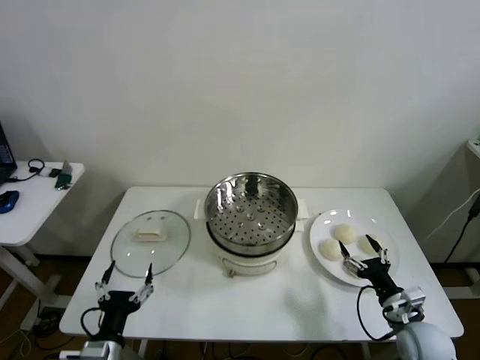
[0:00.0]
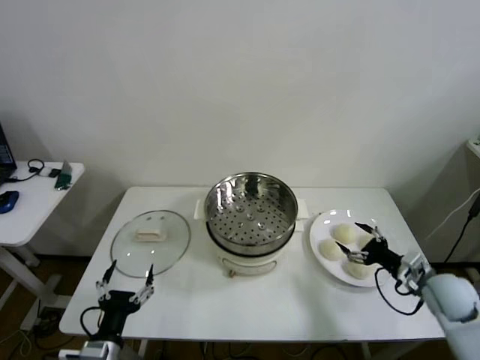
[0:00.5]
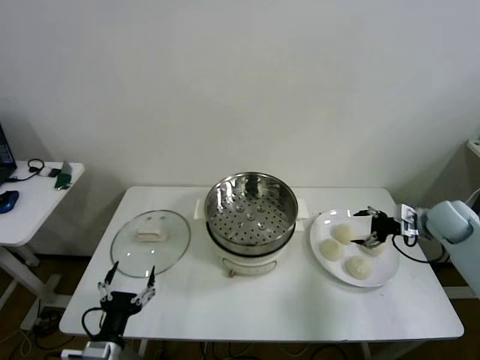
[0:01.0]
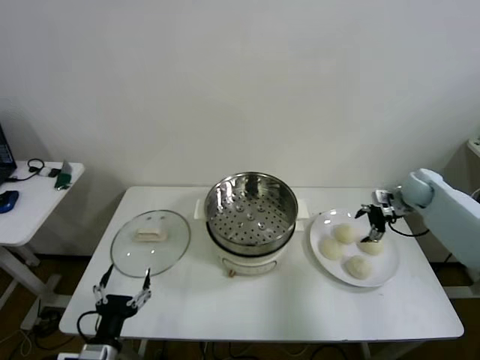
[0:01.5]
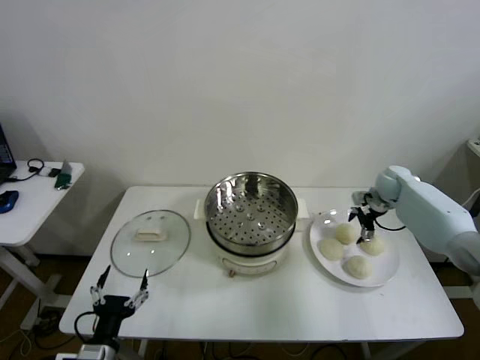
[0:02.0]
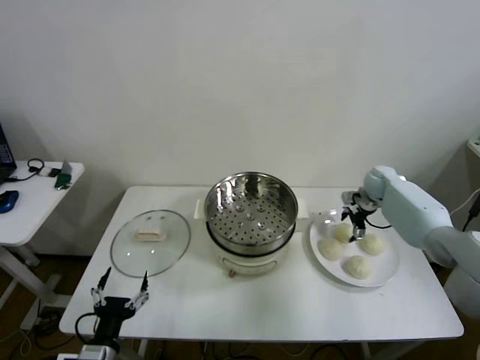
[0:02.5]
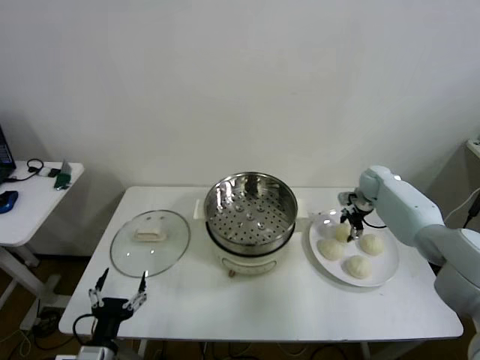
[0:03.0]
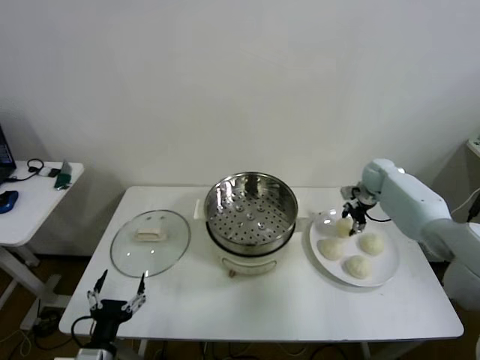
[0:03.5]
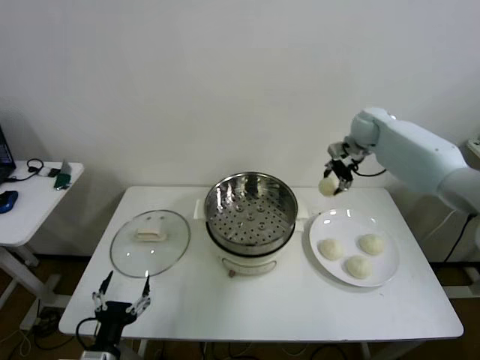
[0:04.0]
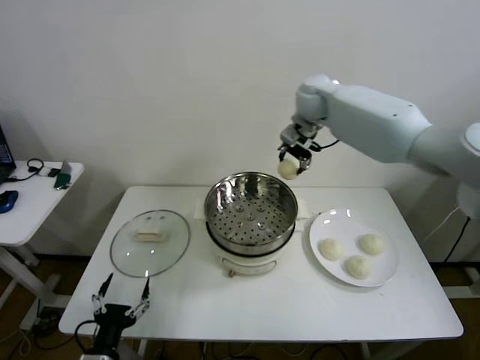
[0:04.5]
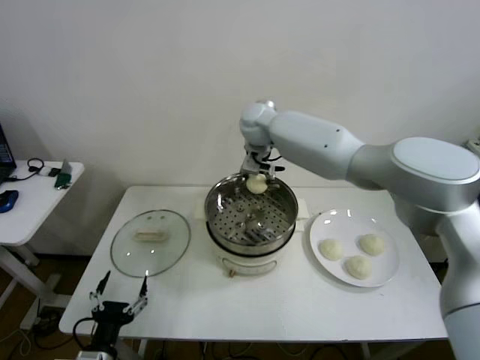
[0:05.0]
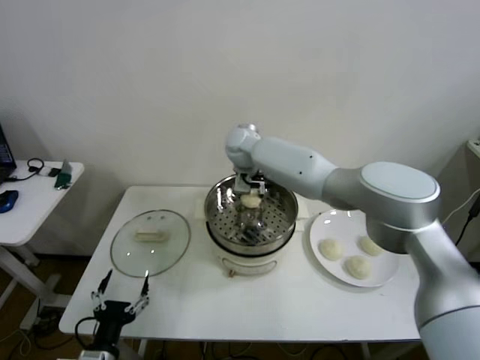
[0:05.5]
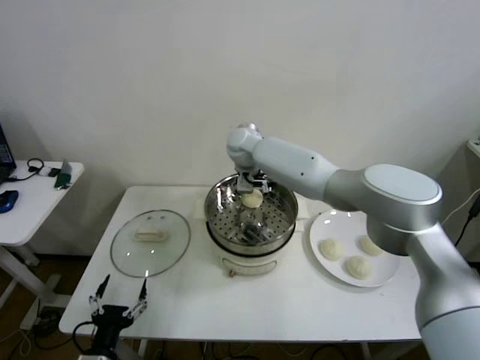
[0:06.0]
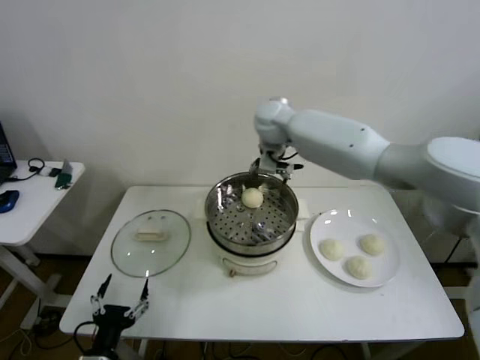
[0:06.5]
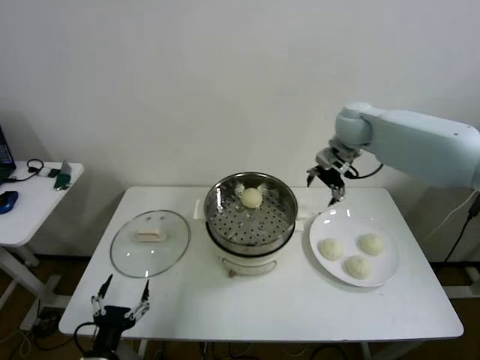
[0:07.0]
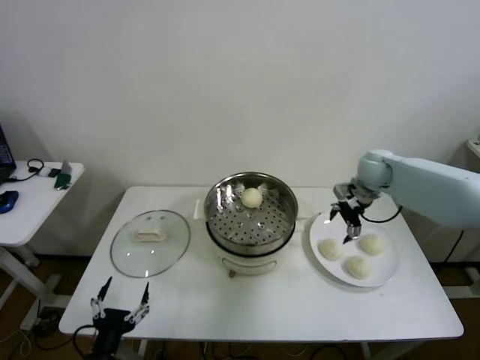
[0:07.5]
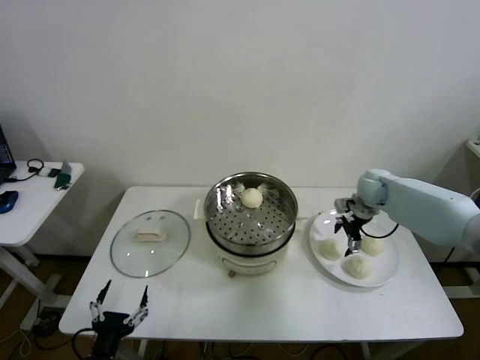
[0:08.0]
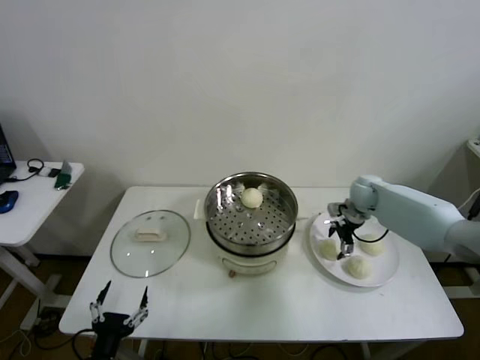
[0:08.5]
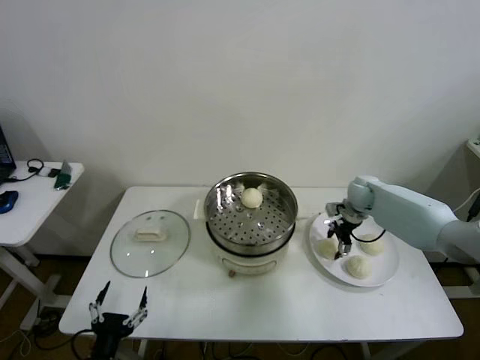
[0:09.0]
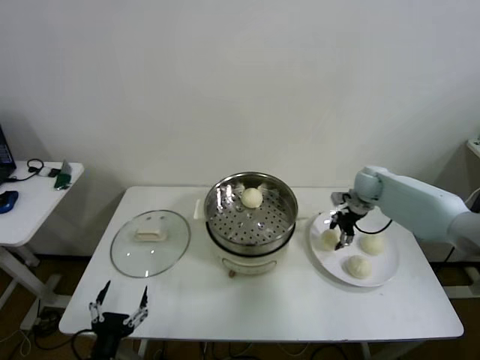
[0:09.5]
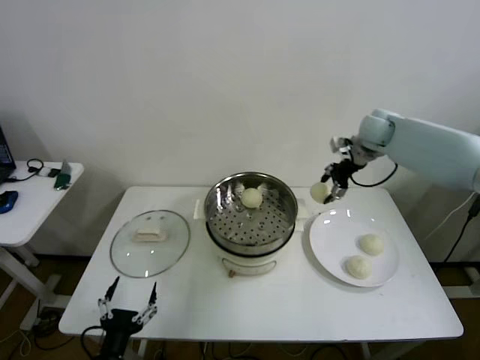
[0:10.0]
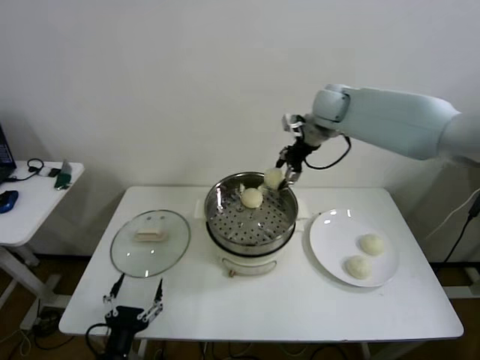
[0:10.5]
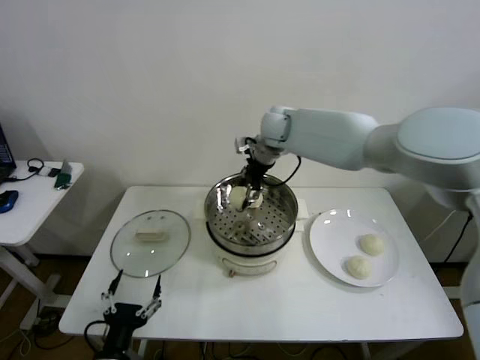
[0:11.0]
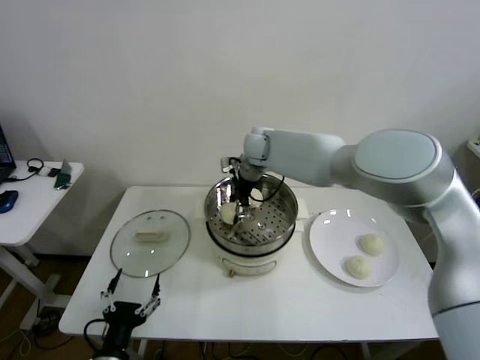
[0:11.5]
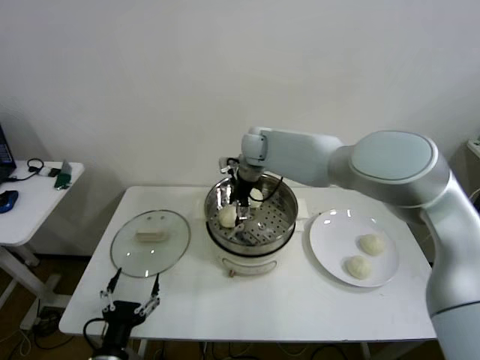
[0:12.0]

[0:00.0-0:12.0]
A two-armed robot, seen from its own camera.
Step, 0:00.0 to 0:03.0: Grasp the baozi in the plate with right gripper.
Step, 0:03.5 to 0:05.5: Place the baozi on the steamer with right gripper.
Step, 0:06.0 to 0:09.0: Grasp the baozi in the plate with right gripper.
Step, 0:09.5 to 0:11.5: Place the baozi on the steamer with right gripper.
0:02.0 to 0:04.0: The right gripper shifts approximately 25 cm upward and to the left, and closes up.
0:04.0 to 0:06.0: The right gripper shifts some 30 cm to the left, and opens its fingers.
0:06.0 to 0:08.0: The right gripper goes some 35 cm to the right.
0:08.0 to 0:10.0: The right gripper travels upward by roughly 20 cm, and closes its fingers.
0:10.0 to 0:12.0: The right gripper moves to the left, roughly 25 cm, and opens.

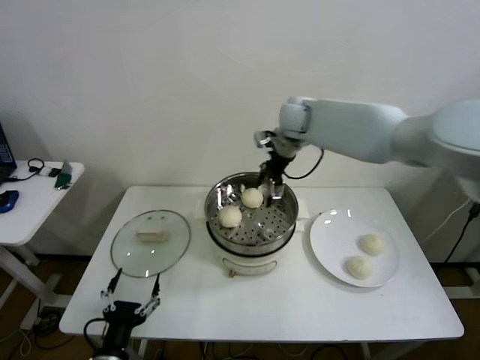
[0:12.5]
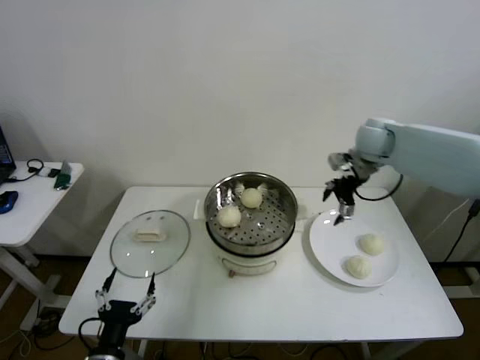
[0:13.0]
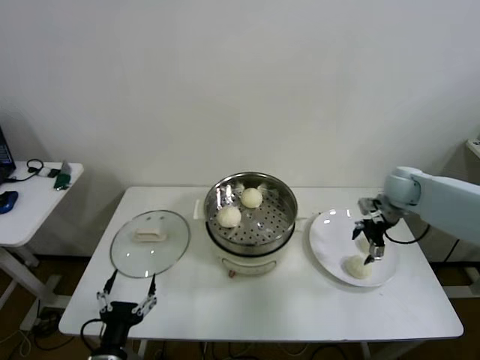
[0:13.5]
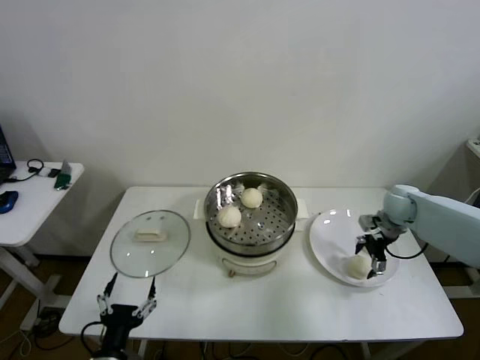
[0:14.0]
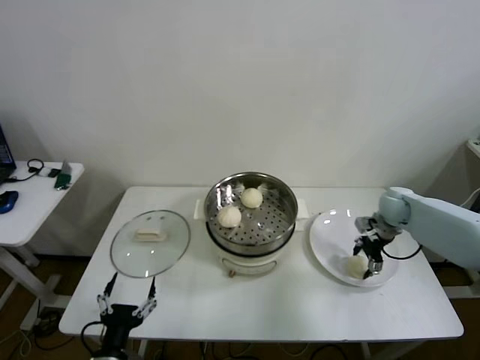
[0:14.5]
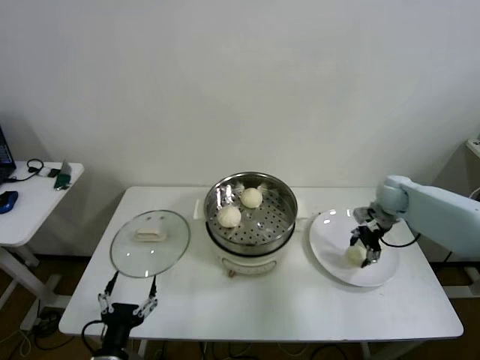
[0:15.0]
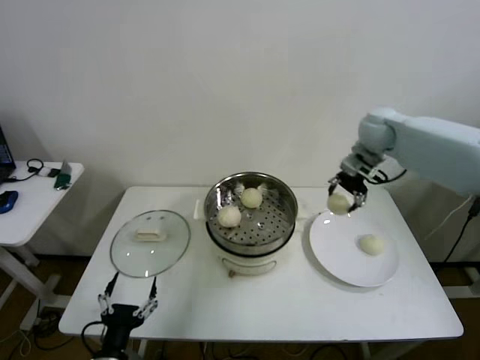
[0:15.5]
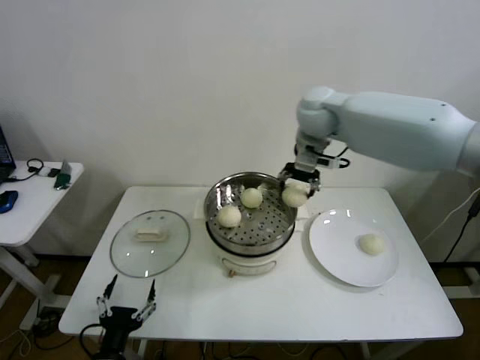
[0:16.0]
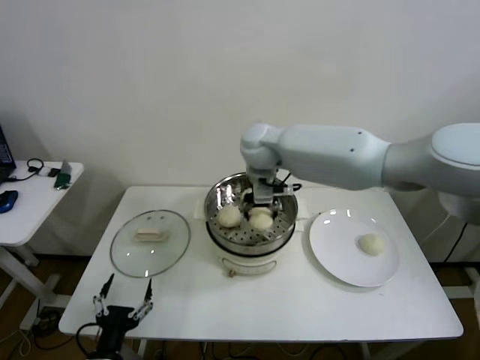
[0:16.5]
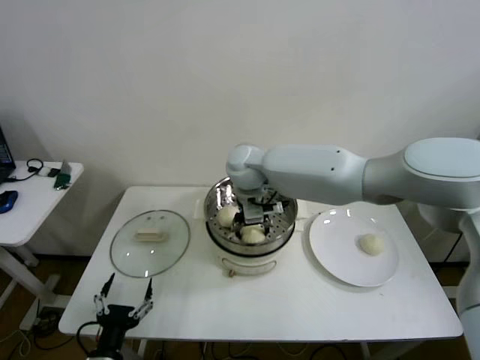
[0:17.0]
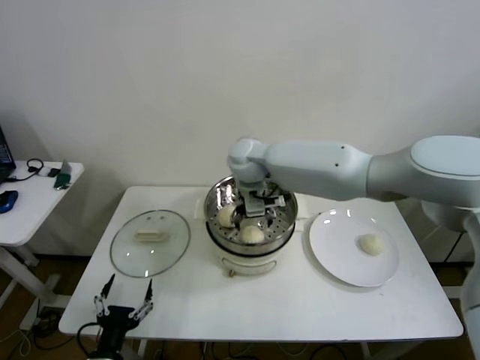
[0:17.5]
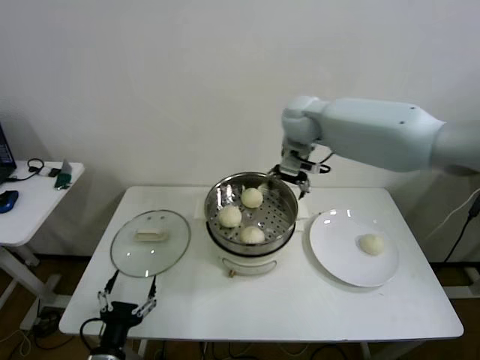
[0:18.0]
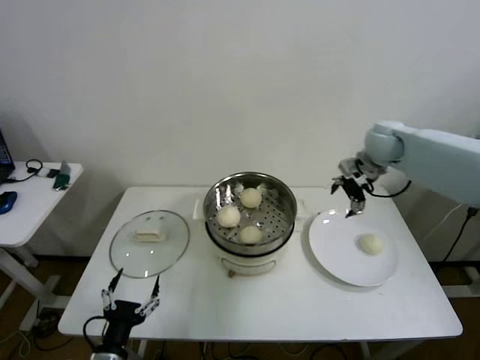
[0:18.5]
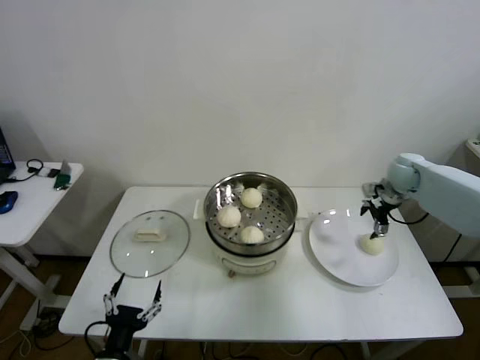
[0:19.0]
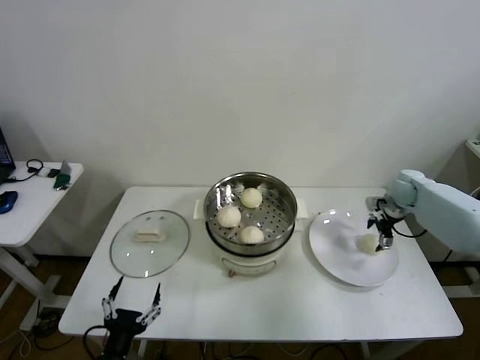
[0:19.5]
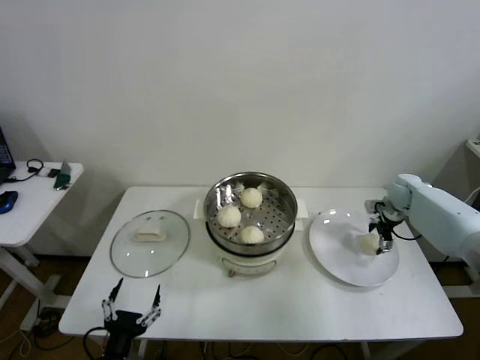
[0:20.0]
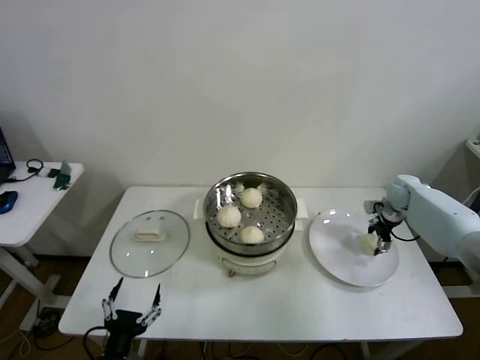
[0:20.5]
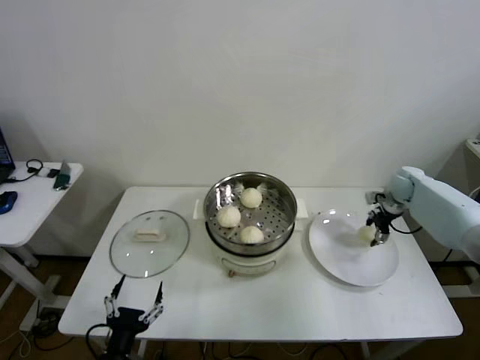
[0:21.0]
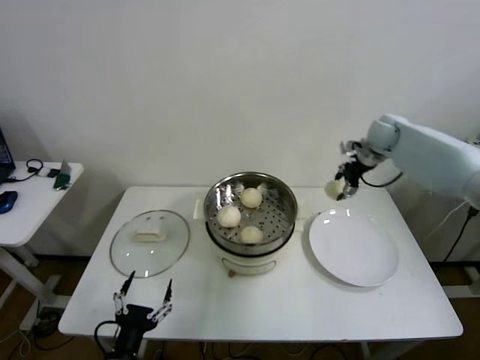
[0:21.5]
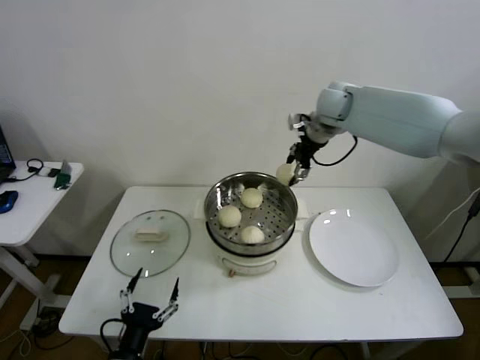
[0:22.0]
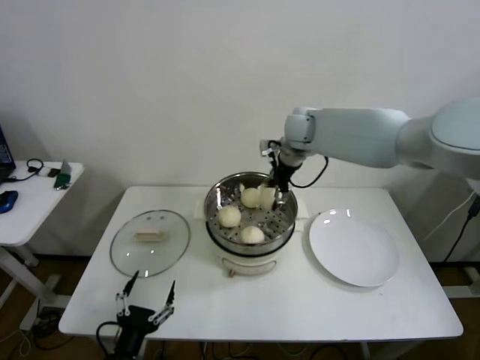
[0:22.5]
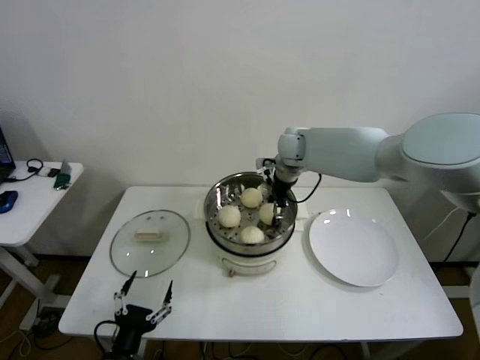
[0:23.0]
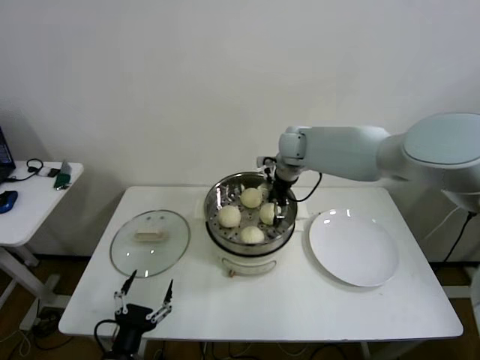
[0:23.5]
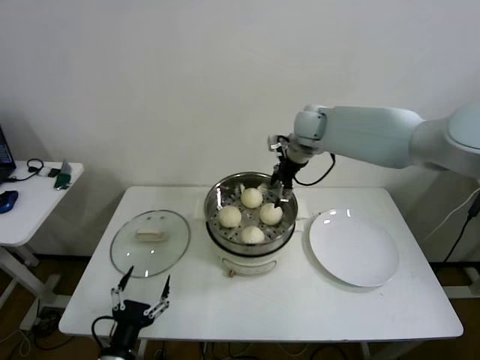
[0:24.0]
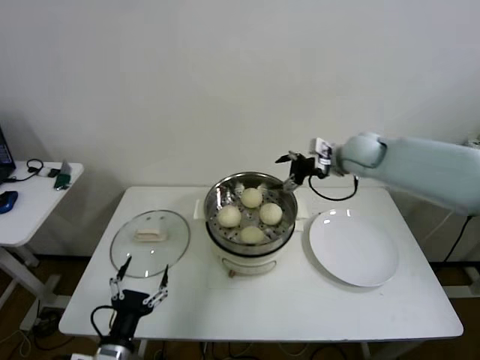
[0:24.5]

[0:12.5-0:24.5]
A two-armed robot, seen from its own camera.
Step, 0:12.5 to 0:14.5: Grasp the baozi in the plate with right gripper.
Step, 0:15.0 to 0:17.0: Place the baozi on the steamer with right gripper.
Step, 0:17.5 to 0:20.5: Grasp the baozi in the plate with right gripper.
Step, 0:21.0 to 0:23.0: Place the baozi on the steamer with right gripper.
0:12.5 to 0:14.5: The right gripper goes some 35 cm to the right and downward, and closes.
0:14.5 to 0:16.5: The right gripper is displaced to the left and upward by about 40 cm.
0:16.5 to 0:18.5: The right gripper heads to the right, covering approximately 30 cm, and opens up.
0:18.5 to 0:20.5: The right gripper goes roughly 20 cm downward and to the right, and closes its fingers.
0:20.5 to 0:22.5: The right gripper goes roughly 35 cm to the left and upward.
0:22.5 to 0:24.5: The right gripper moves to the right and backward, roughly 15 cm, and opens up.

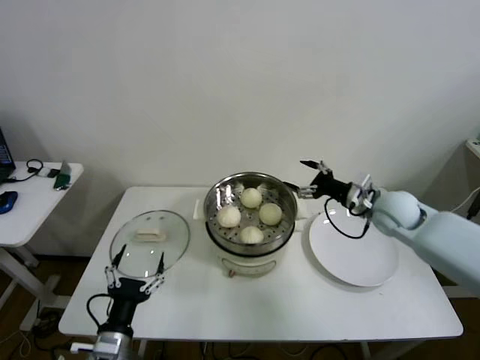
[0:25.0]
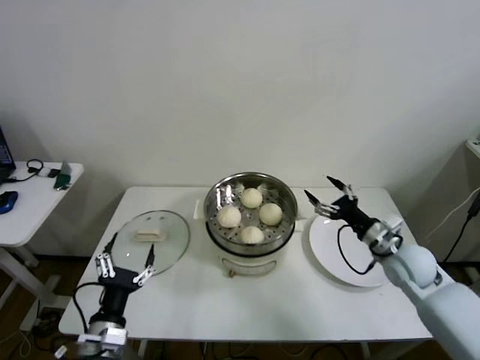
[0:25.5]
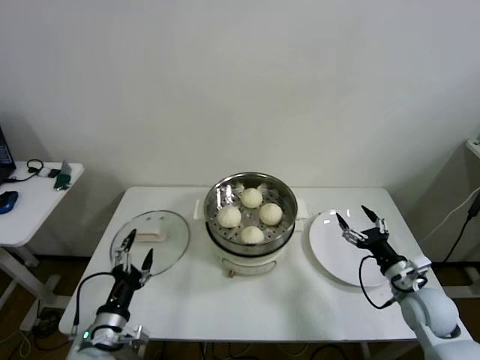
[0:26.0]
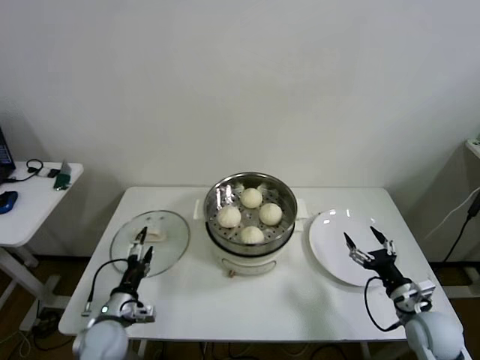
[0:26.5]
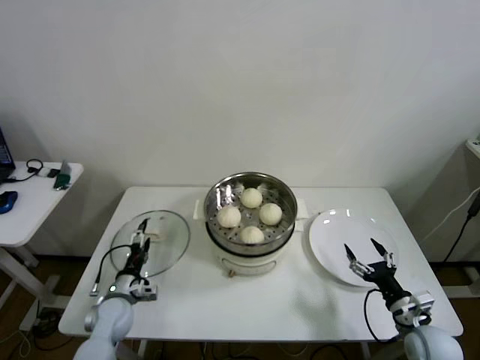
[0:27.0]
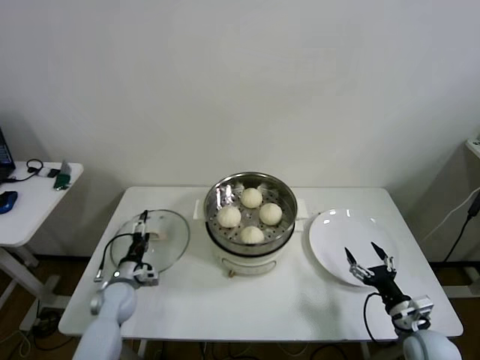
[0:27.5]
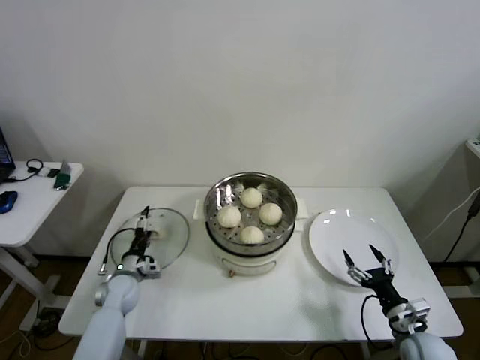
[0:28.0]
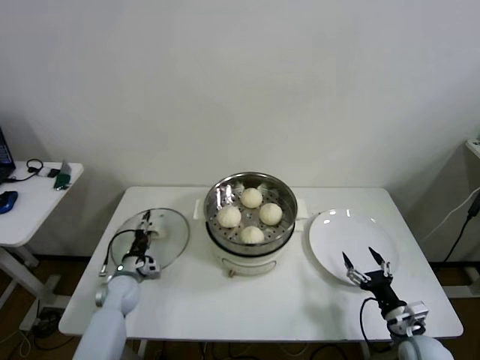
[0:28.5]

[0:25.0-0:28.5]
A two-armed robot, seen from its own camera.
0:25.0 to 0:27.0: The left gripper heads forward, downward and to the left, covering some 20 cm. The right gripper goes some 30 cm backward and downward.
0:27.0 to 0:28.5: The left gripper heads forward, covering about 5 cm.
